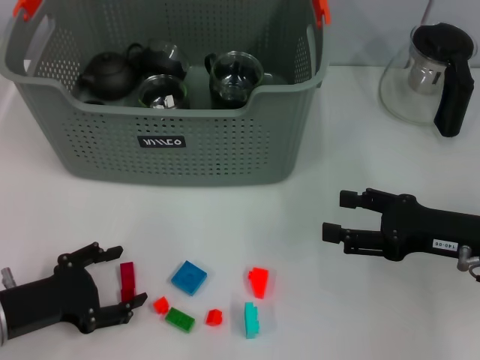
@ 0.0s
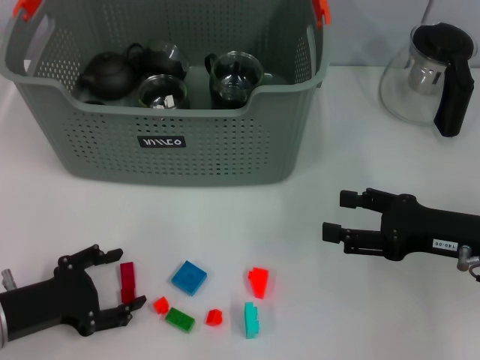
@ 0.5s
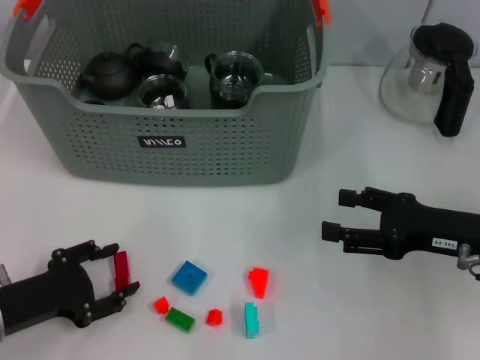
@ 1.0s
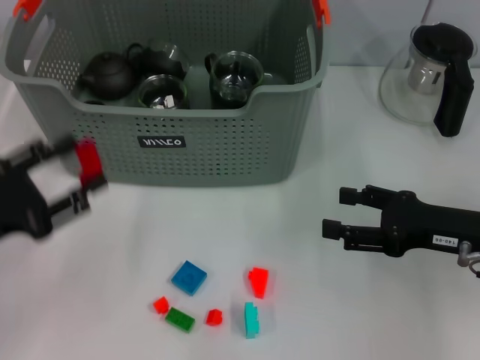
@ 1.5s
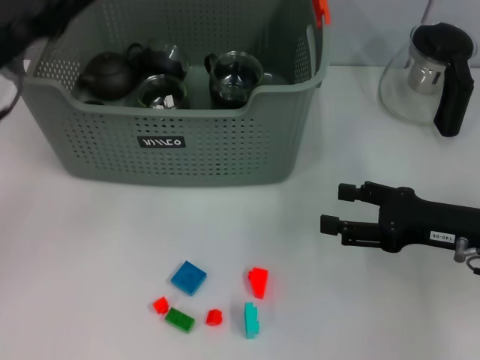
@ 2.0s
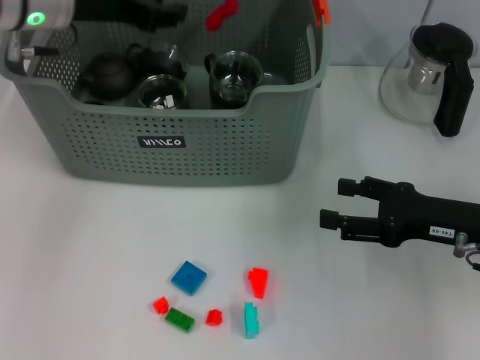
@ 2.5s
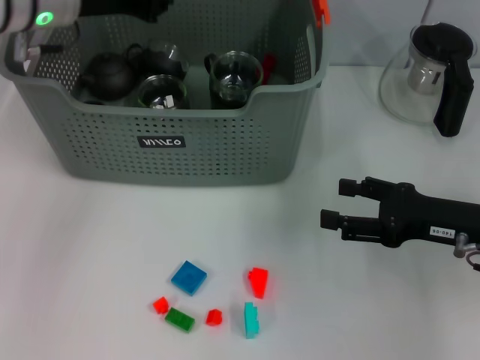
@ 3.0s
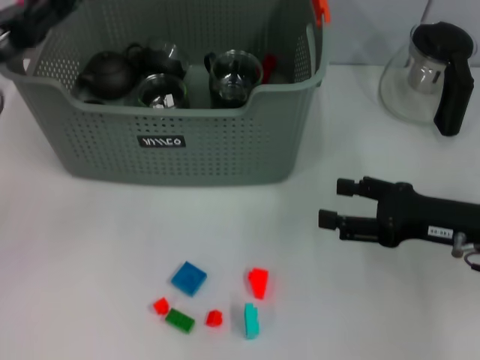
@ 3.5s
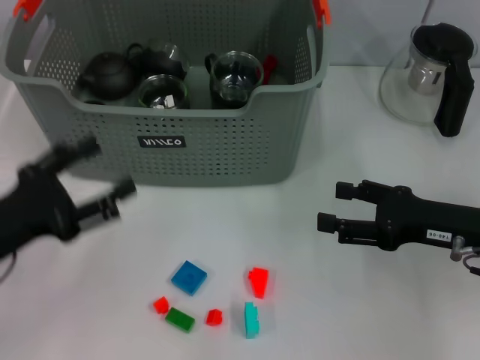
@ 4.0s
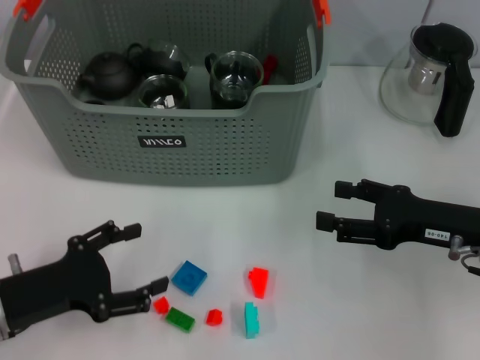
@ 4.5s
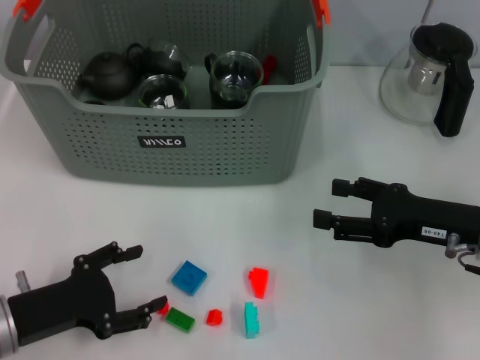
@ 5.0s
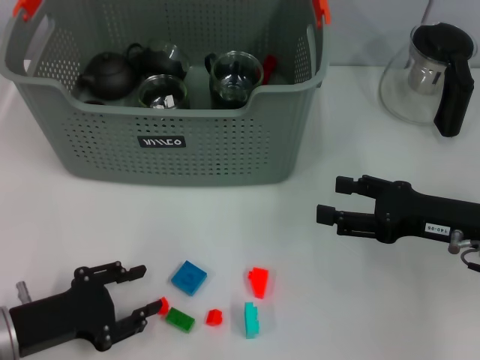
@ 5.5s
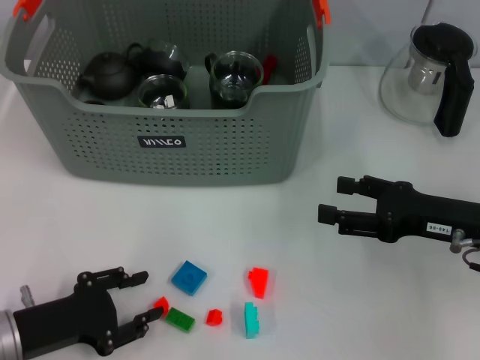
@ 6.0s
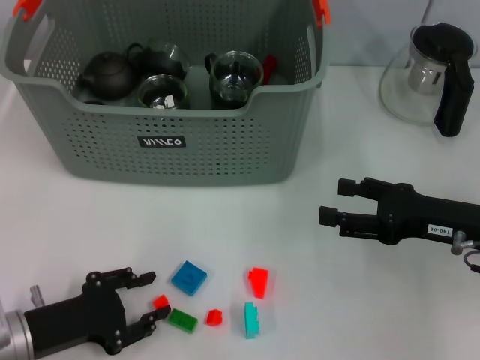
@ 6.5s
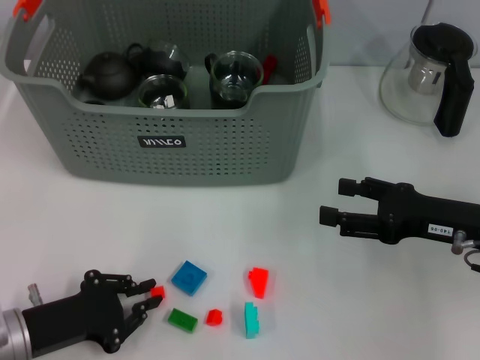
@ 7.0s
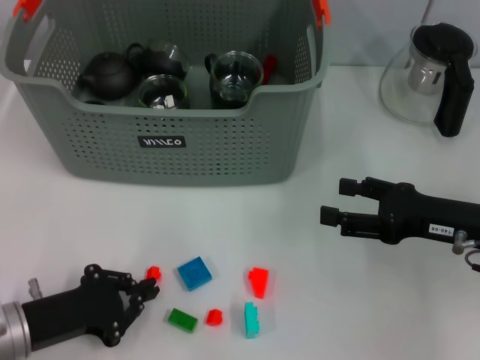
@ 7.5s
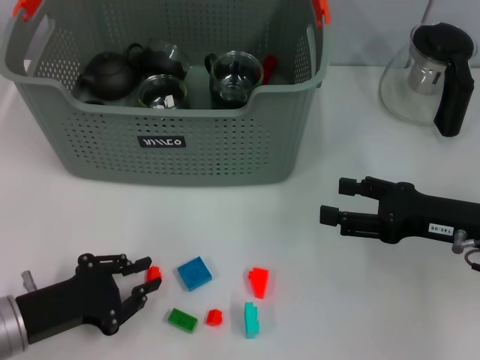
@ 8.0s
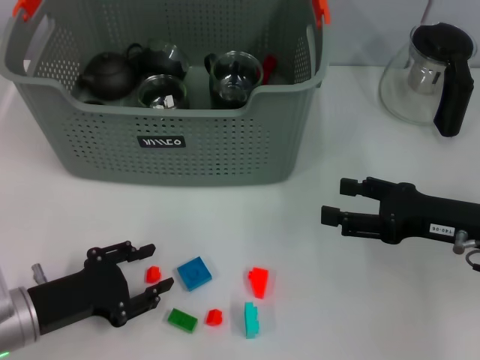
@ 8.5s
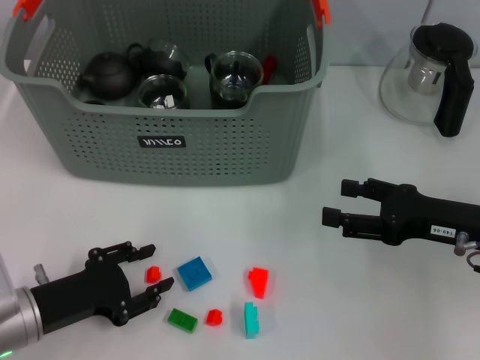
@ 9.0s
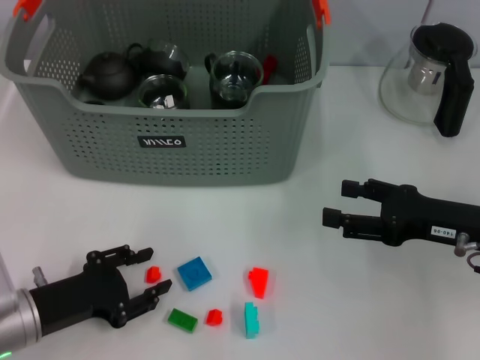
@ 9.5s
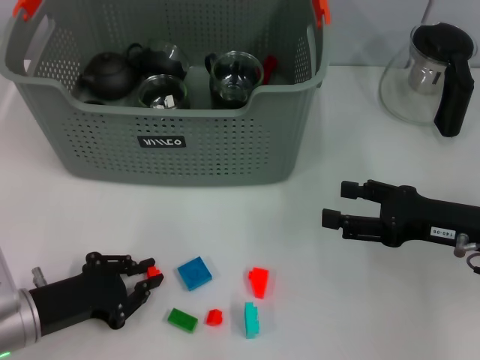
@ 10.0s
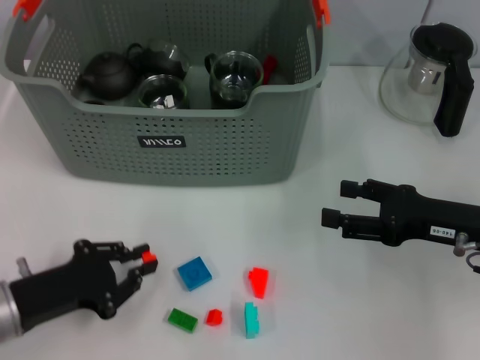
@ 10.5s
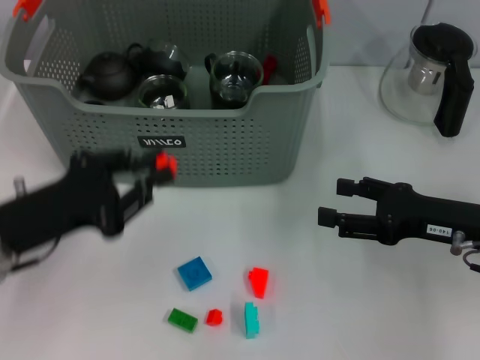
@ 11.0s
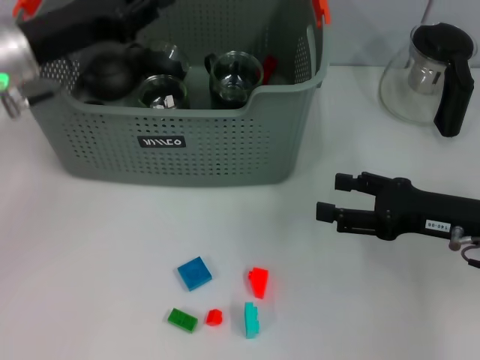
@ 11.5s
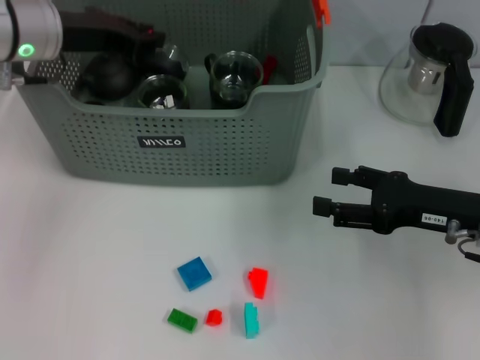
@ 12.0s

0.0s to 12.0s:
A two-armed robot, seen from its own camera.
Task of the whole recording: pick up the teacup on the table and place it into the storage bin, pick up the block on the table and place it into the storage bin.
Step, 1.0s to 2.5s: Place the red block in the storage box with left gripper.
Step, 3.0s to 10.0s: Grasp the orange block with left gripper.
0.0s to 2.0s: The left gripper goes approximately 20 cm upward and forward.
2.0s to 4.0s: The left gripper is displaced backward and downward by some 15 cm, and closes, then reopens.
4.0s to 6.0s: The left gripper travels downward by roughly 5 cm.
6.0s to 8.0s: The left gripper closes up.
8.0s to 10.0s: The grippers move only a little.
10.0s to 12.0s: The left gripper goes some 30 cm forward and upward.

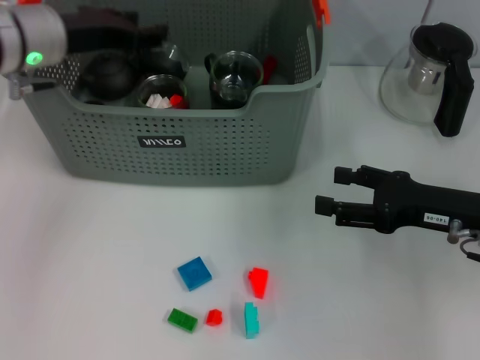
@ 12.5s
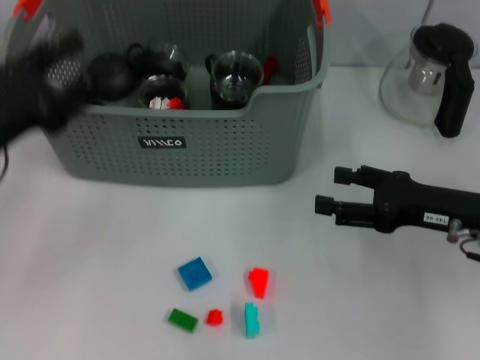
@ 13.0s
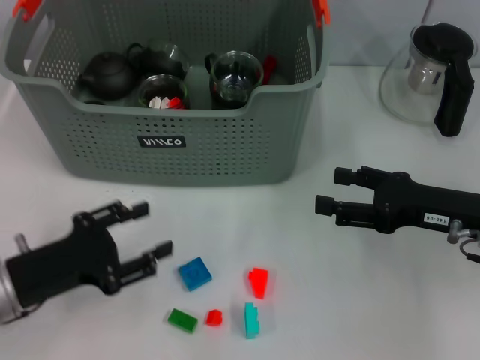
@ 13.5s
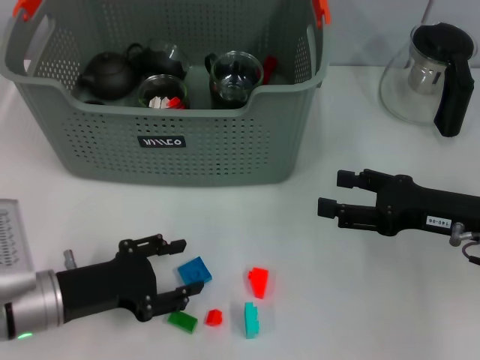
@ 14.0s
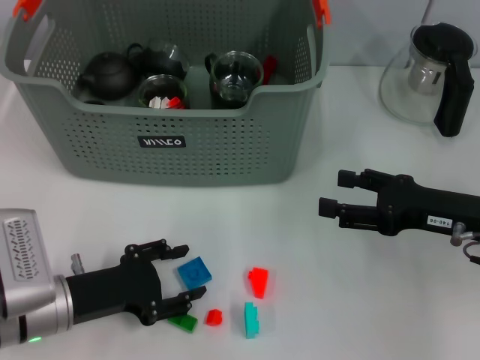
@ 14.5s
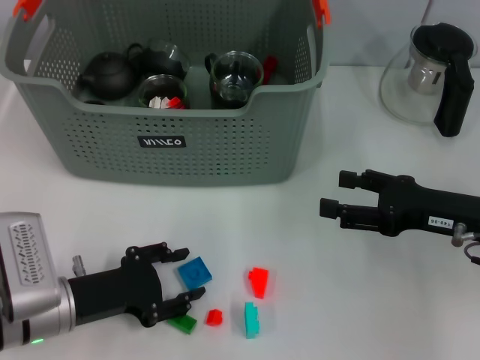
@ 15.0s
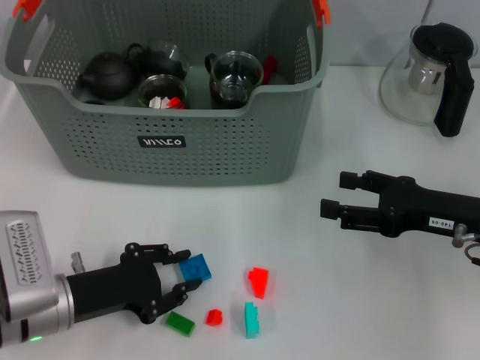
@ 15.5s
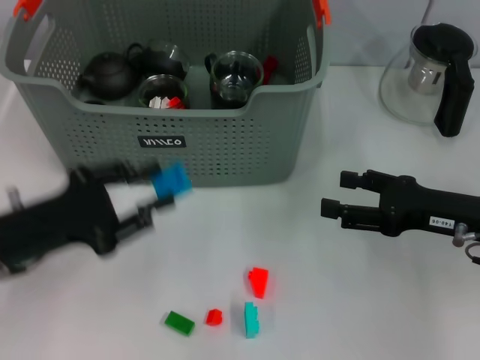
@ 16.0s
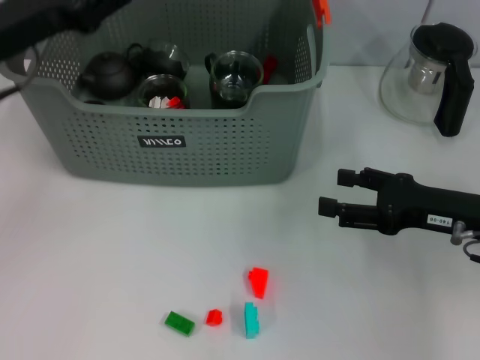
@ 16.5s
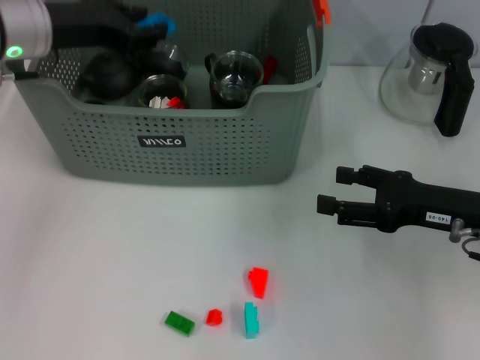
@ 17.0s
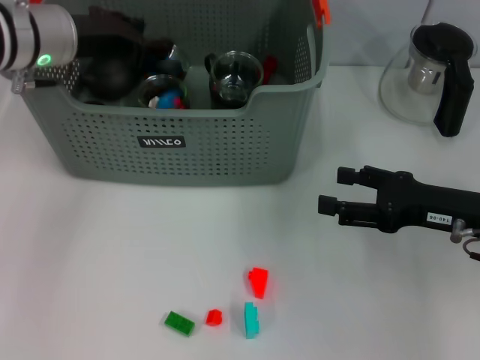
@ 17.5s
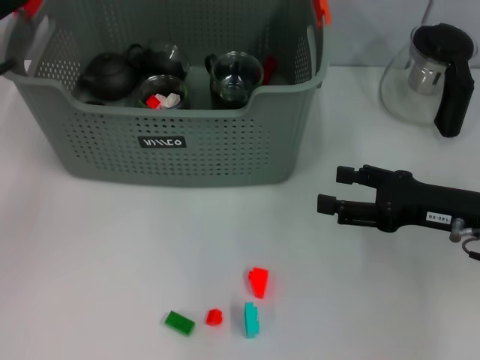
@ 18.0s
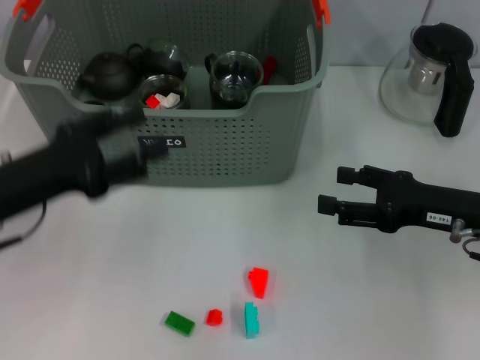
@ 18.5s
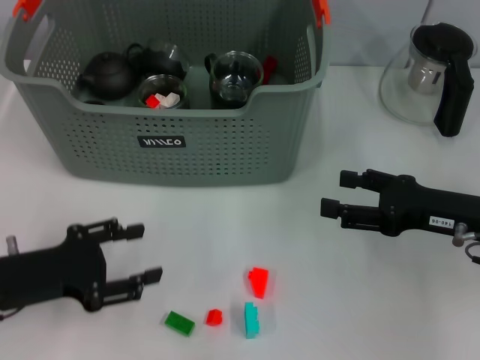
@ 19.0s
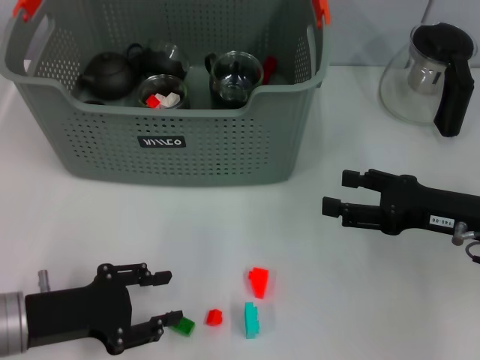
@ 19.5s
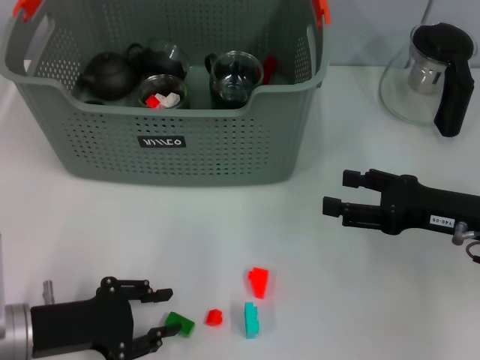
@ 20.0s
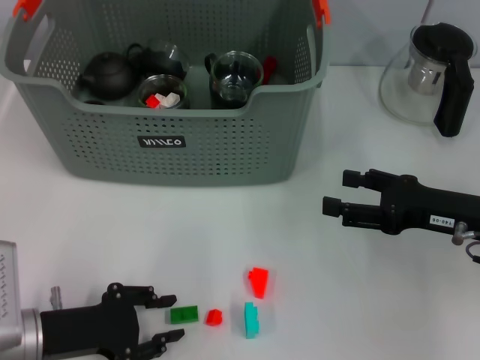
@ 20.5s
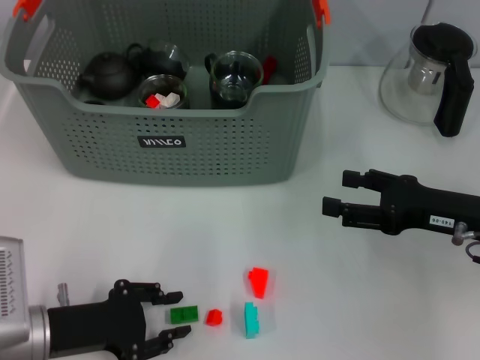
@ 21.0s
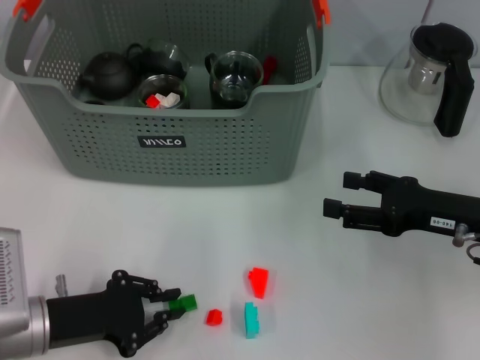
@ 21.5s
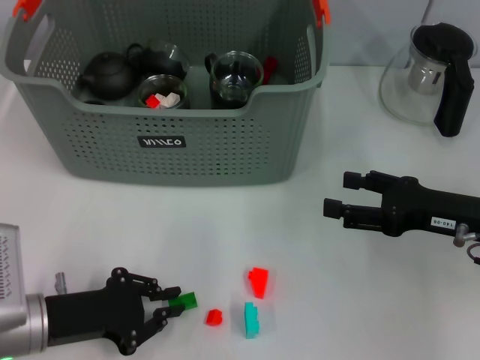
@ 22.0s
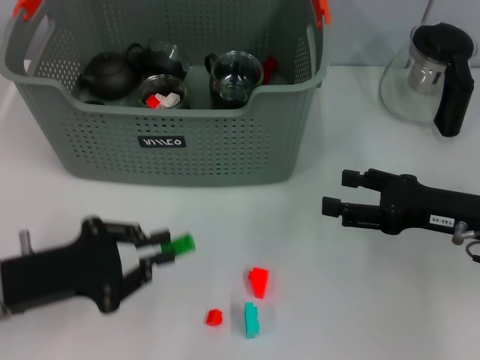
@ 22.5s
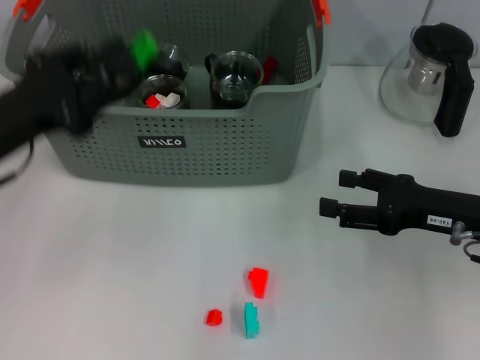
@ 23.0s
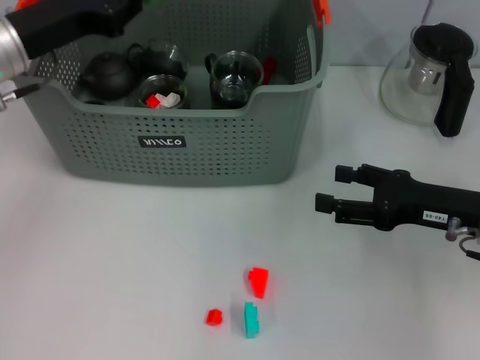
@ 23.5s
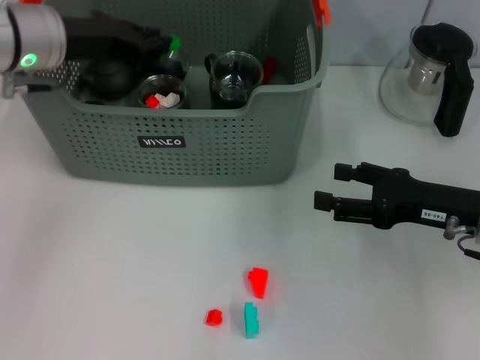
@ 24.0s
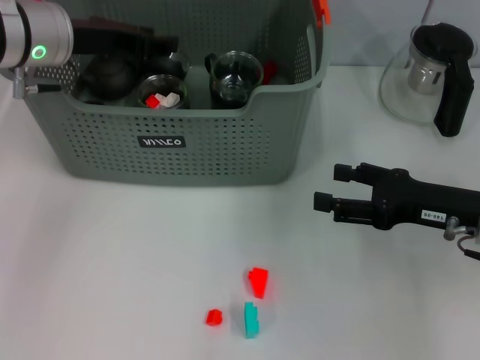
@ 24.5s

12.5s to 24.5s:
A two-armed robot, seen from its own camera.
Task of the whole recording: pick up the teacup on the table and place it into the storage bin, pick up the block on the table and place it into the storage bin.
Step, 12.5s to 15.0s: Grasp the dark blue block with left gripper.
Step, 15.5s to 17.5s: Place the dark blue block in the storage box with left gripper.
Step, 18.0s to 21.5s: Grasp the green block with left gripper.
Step, 22.0s to 24.0s: Place the green block in the storage box with left gripper.
12.5s to 14.5s: The left gripper heads backward and downward, covering roughly 25 cm.
14.5s to 16.5s: The left gripper travels upward and forward by roughly 20 cm.
16.5s to 18.5s: The left gripper heads backward and downward, covering roughly 10 cm.
18.5s to 20.5s: The left gripper shifts approximately 10 cm downward and backward.
20.5s to 22.5s: The left gripper is displaced upward by about 5 cm.
22.5s to 24.5s: The left gripper is displaced forward and upward by about 25 cm.

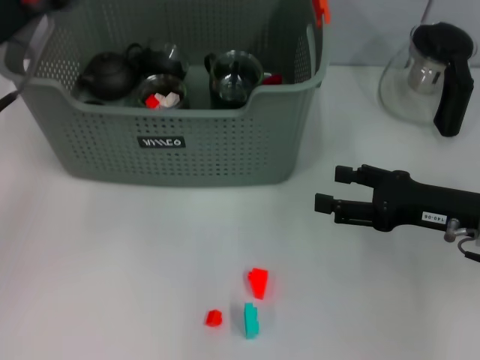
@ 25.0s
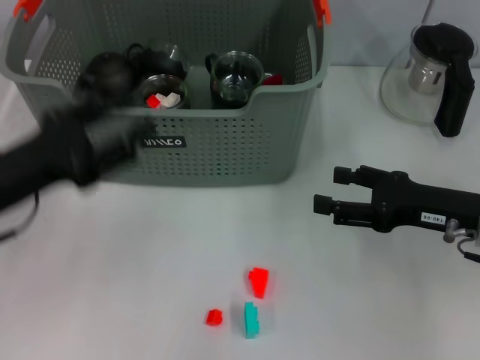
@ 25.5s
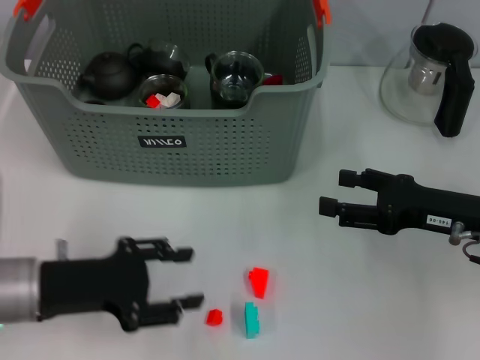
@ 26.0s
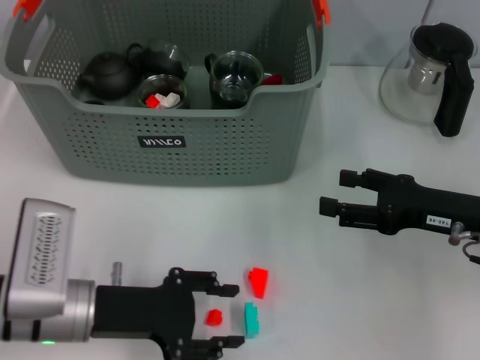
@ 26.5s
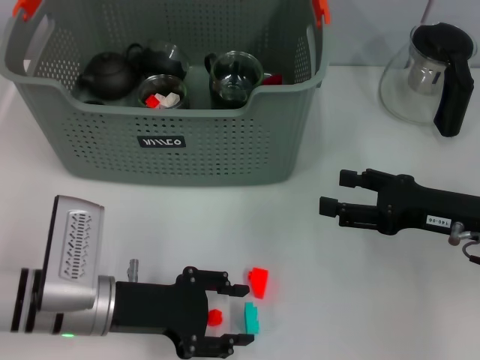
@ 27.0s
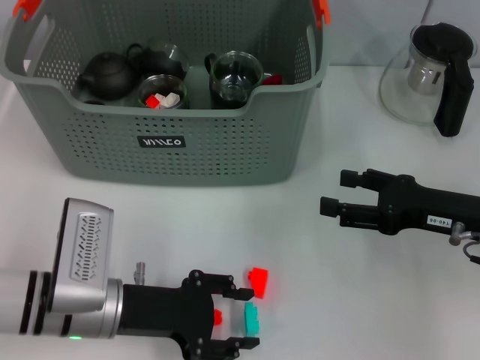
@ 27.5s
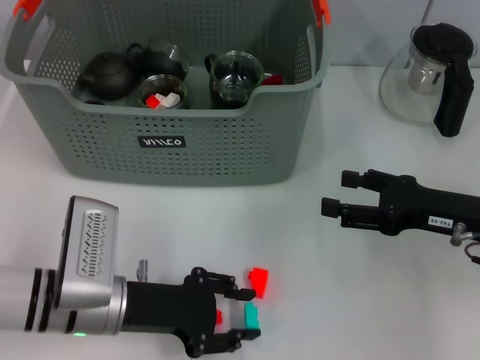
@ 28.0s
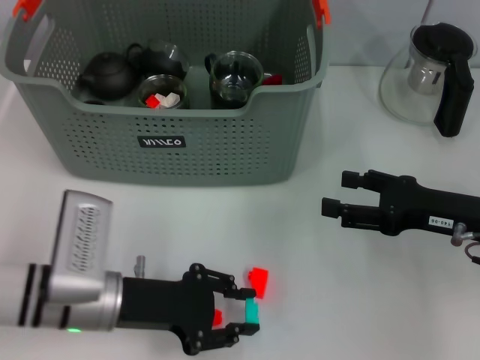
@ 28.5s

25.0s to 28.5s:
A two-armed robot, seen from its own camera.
Task of the whole recording: pick up the teacup on the table and place it into the storage bin, pick up the block on the table and place it into the storage bin.
Step, 25.0s to 28.0s: Grasp the light blue block with left gripper.
25.0s to 27.0s: The left gripper travels downward, backward and to the right by about 20 cm.
27.0s to 28.5s: The two grippers keep their place.
